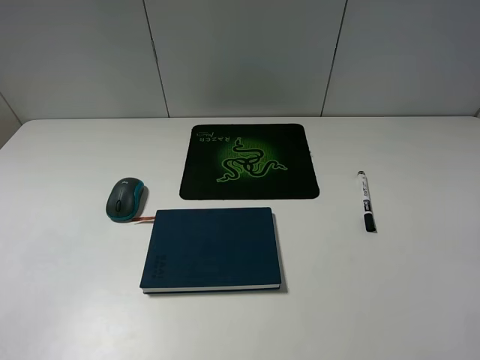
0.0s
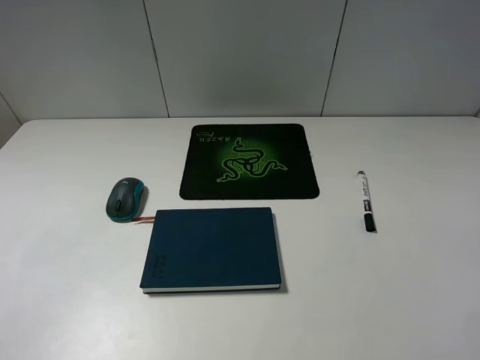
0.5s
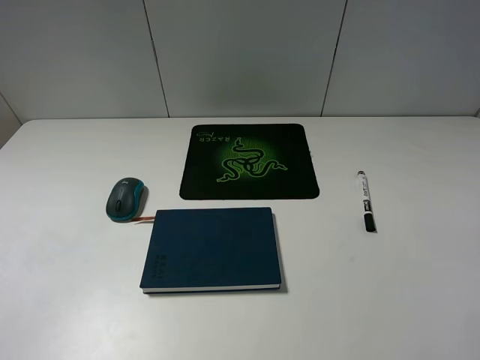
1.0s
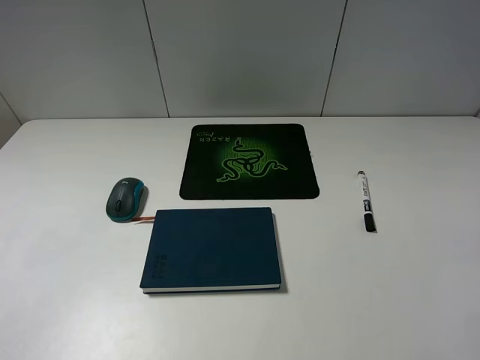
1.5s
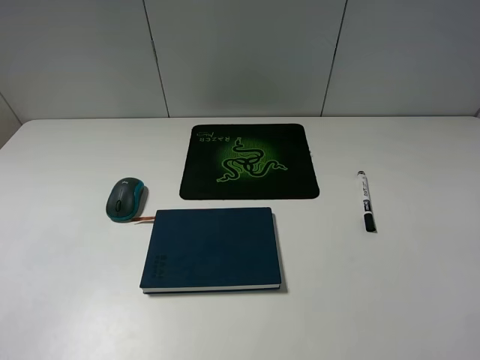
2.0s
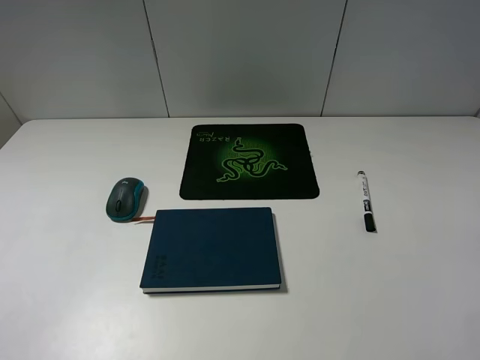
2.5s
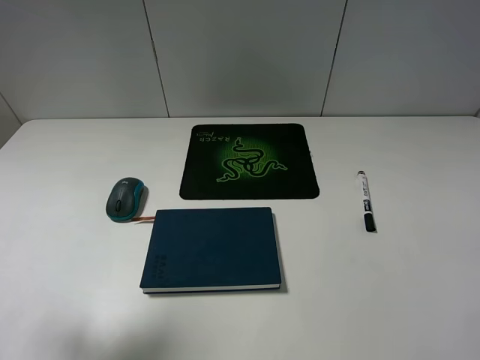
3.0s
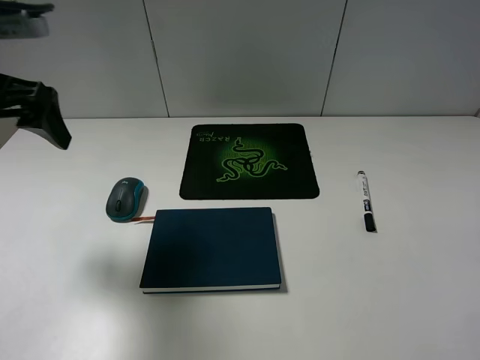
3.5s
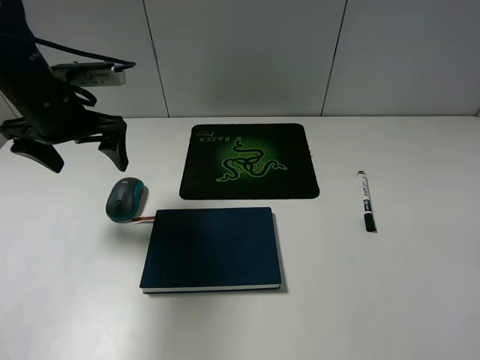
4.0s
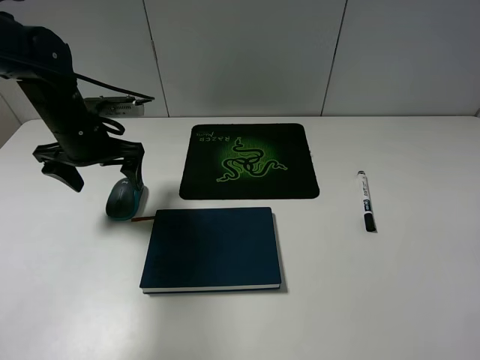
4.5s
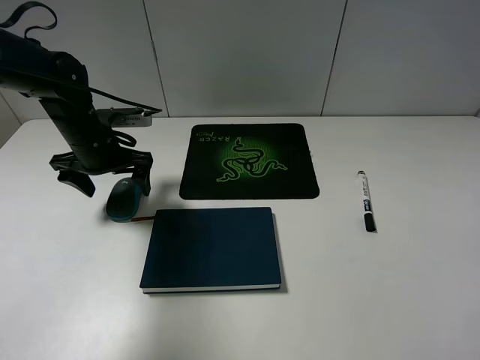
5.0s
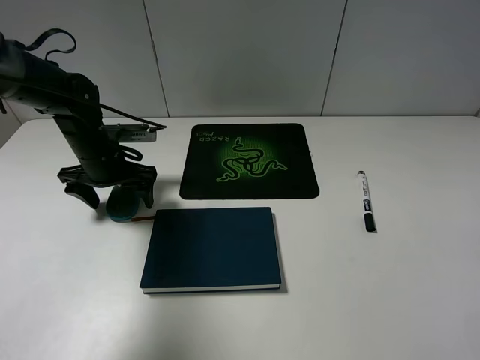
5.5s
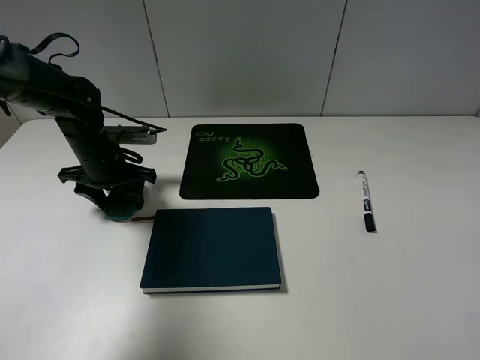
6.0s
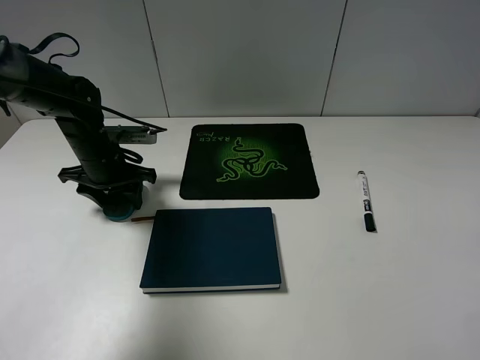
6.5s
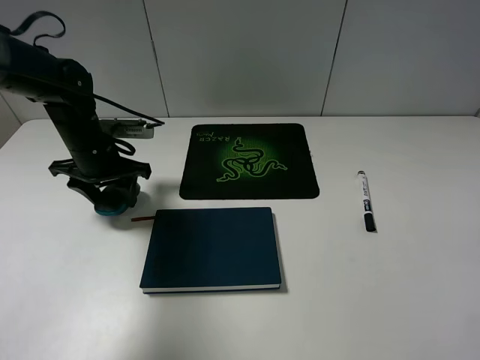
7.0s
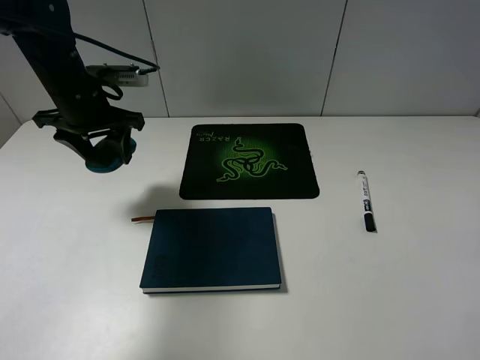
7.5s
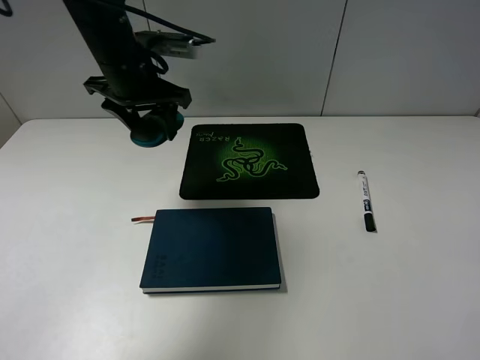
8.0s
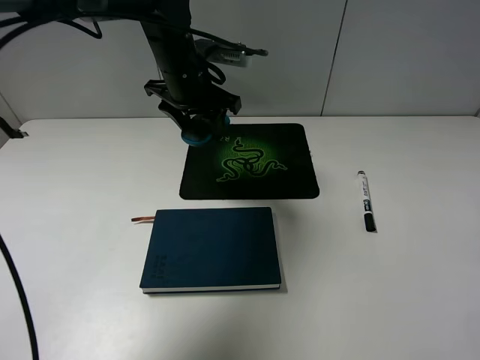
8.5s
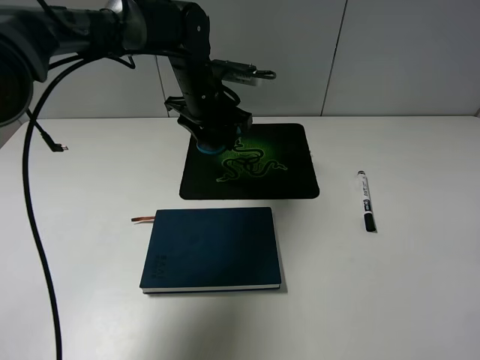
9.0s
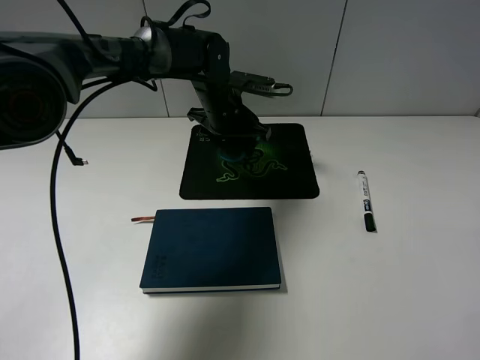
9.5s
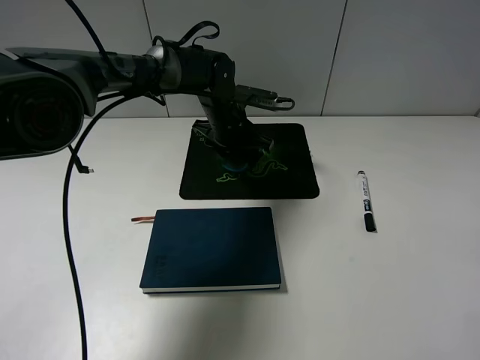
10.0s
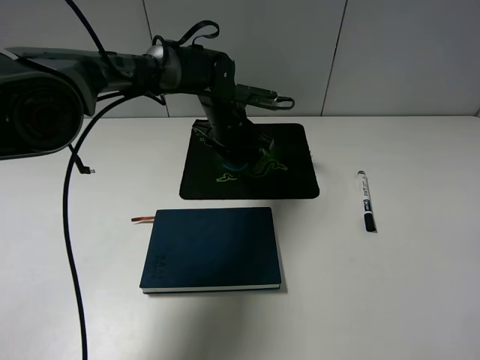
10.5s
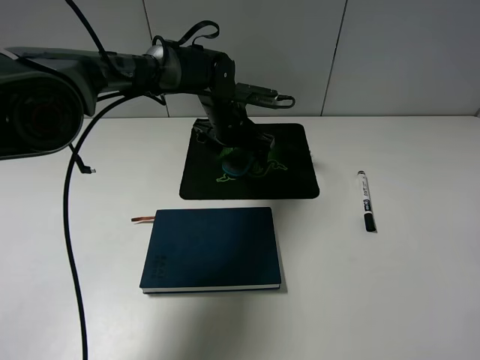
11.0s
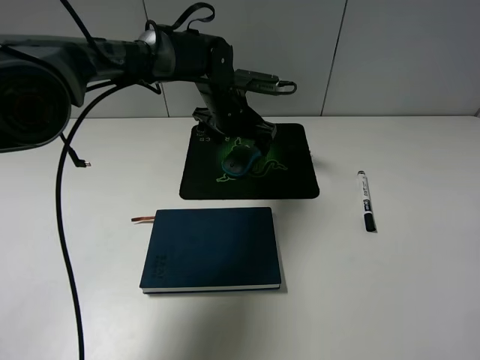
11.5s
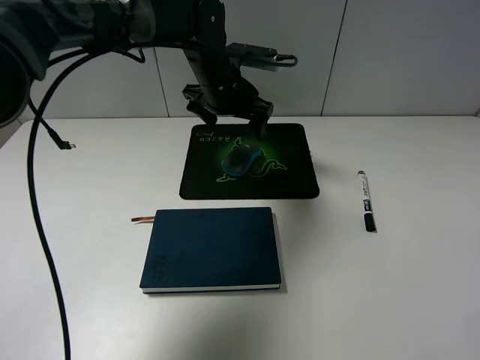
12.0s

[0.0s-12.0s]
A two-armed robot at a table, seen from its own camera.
Step, 0.0s to 6.0s: Grasp the mouse with the left gripper.
Step, 6.5s to 11.5s: Place the mouse on the mouse pad with the left gripper.
0.0s to 2.0s: Neither gripper changes place.
2.0s to 4.0s: The left gripper shifts some 30 cm forward.
4.0s to 6.0s: The left gripper moves downward, about 10 cm, and closes up.
6.0s to 8.0s: The left gripper is displaced upward and to the right by roughly 15 cm.
8.0s to 10.0s: The left gripper goes some 20 cm downward, to the right and forward.
10.0s to 12.0s: The left gripper is displaced upward by some 10 cm, and opens.

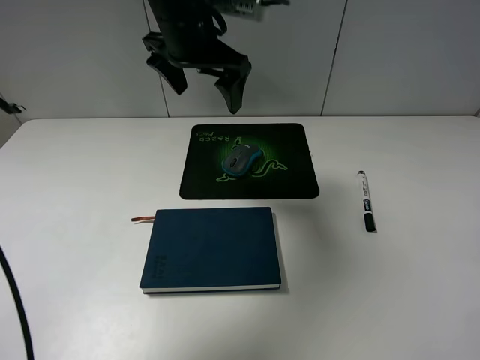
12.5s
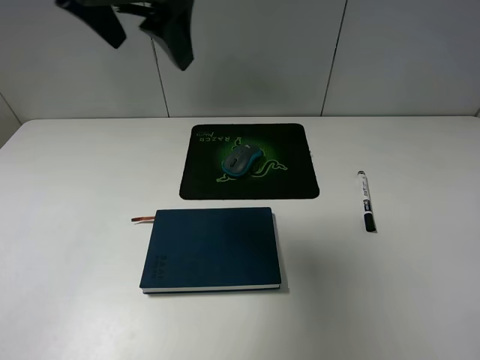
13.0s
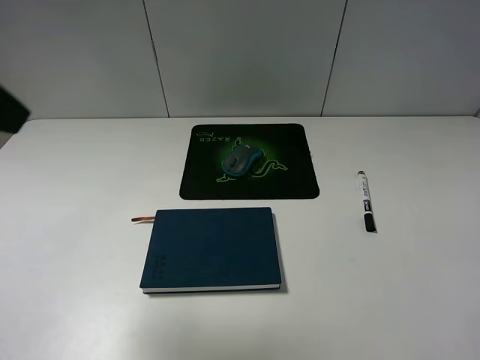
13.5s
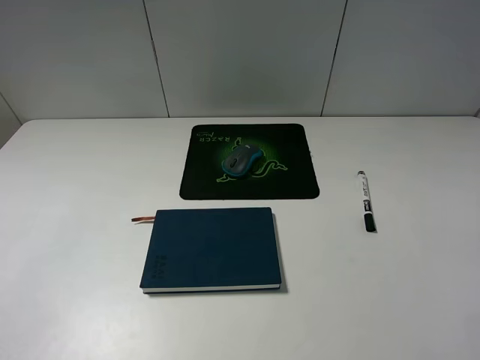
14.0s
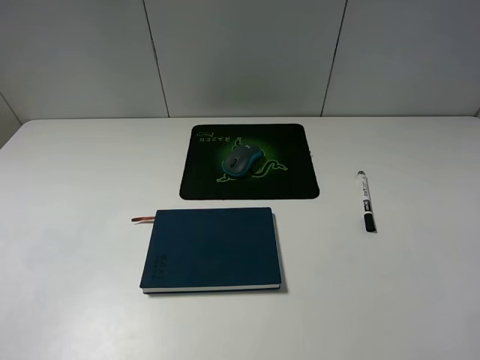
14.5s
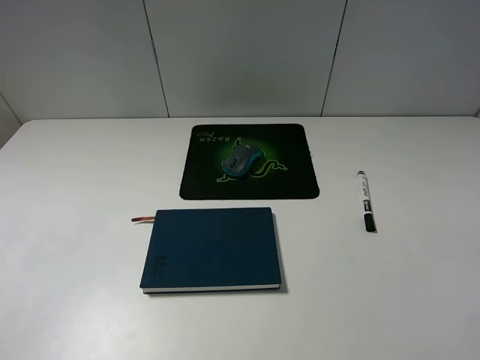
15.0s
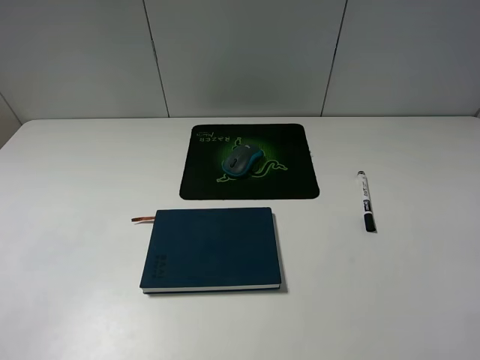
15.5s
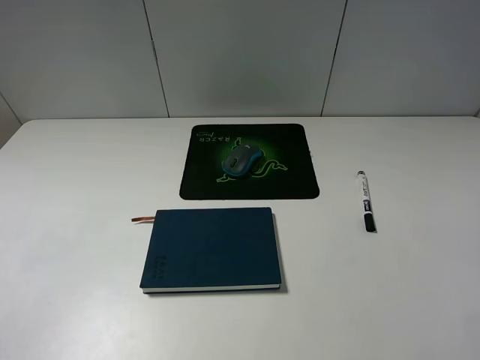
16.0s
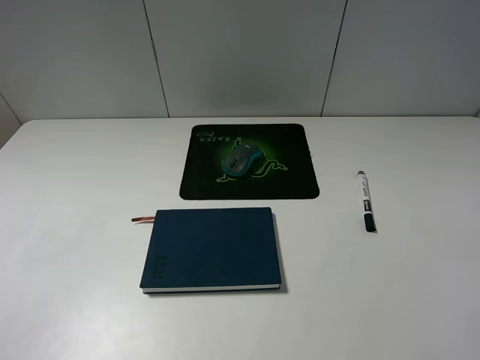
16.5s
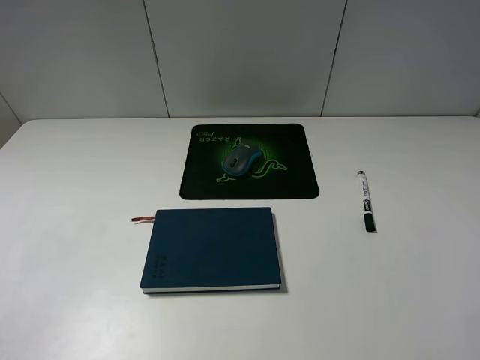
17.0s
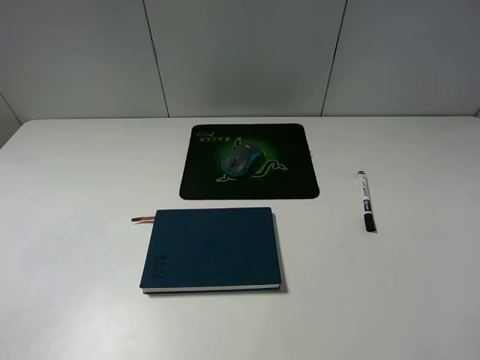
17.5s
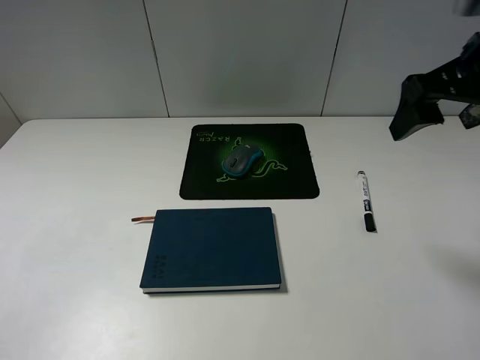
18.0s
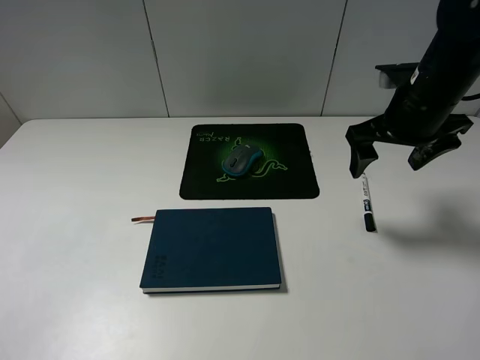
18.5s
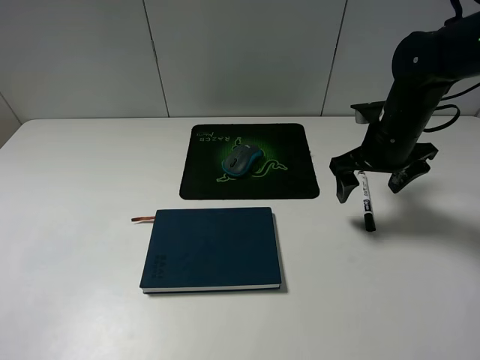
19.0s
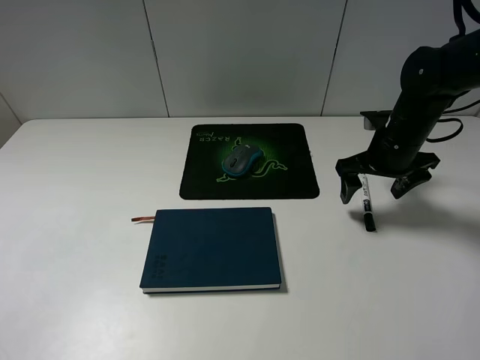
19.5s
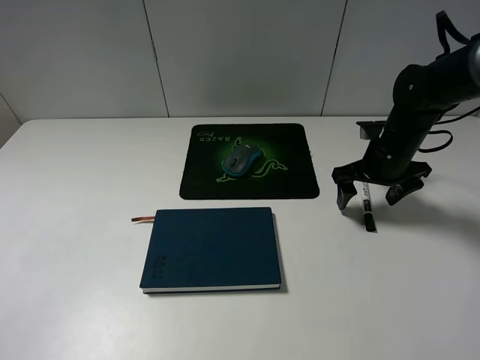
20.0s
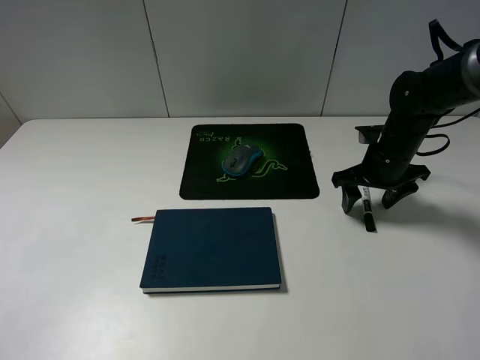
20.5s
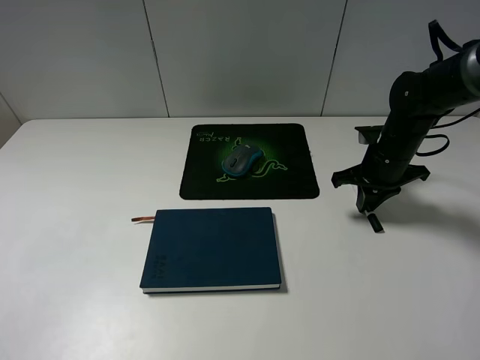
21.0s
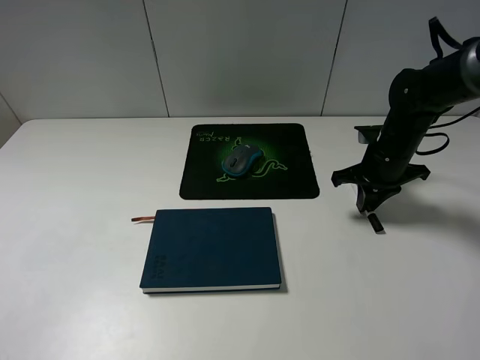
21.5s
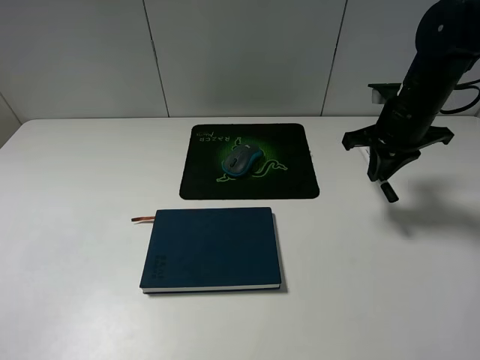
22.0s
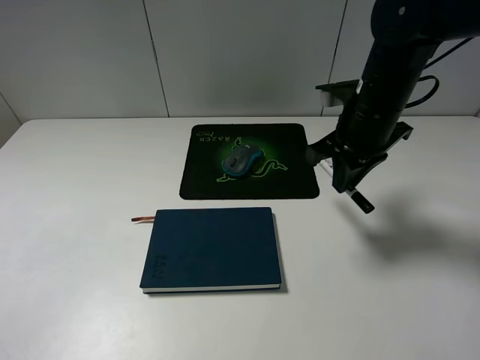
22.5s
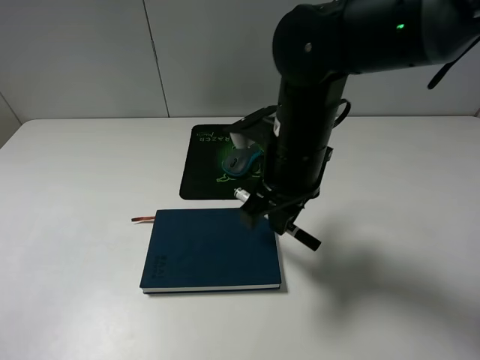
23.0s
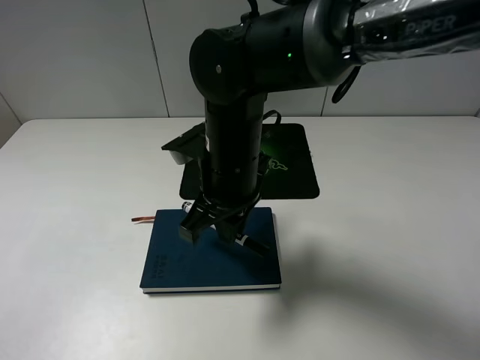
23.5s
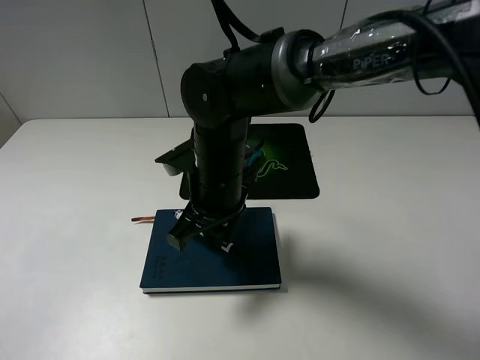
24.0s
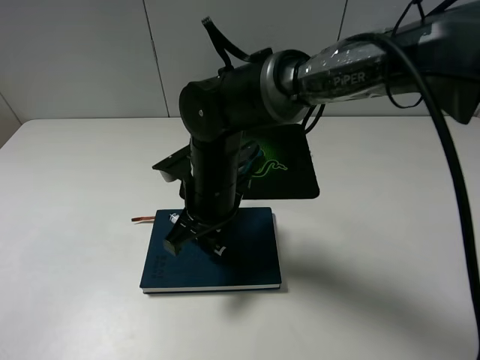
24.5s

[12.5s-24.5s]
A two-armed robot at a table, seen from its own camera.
Step, 12.5s to 21.0s: Grasp the marker with the right gripper.
12.5s to 14.5s: The left gripper goes approximately 40 cm backward and to the left.
16.5s to 18.5s: The right gripper goes about 30 cm forward.
18.5s to 20.5s: The right gripper goes approximately 10 cm downward.
20.5s to 22.5s: The right gripper goes about 15 cm upward, to the left and backward, and closes up.
22.5s to 24.5s: The right gripper shifts roughly 20 cm to the left and downward.

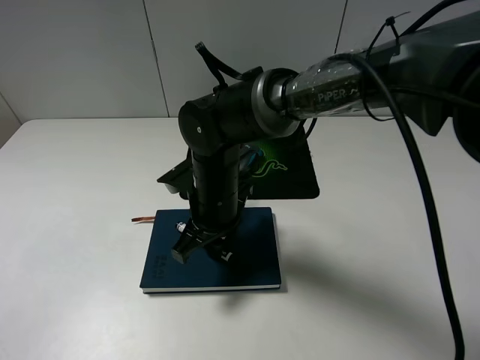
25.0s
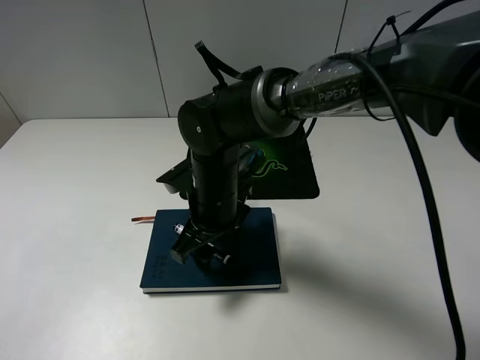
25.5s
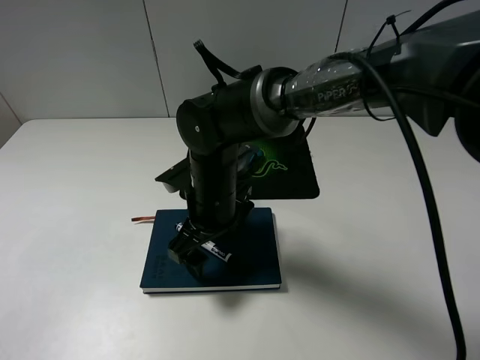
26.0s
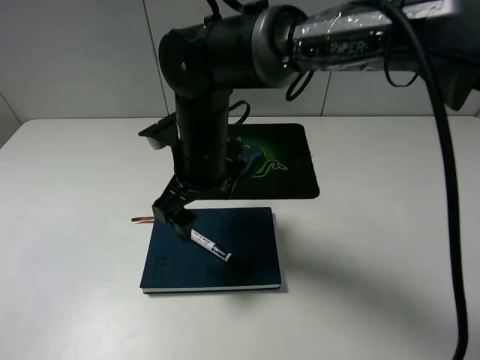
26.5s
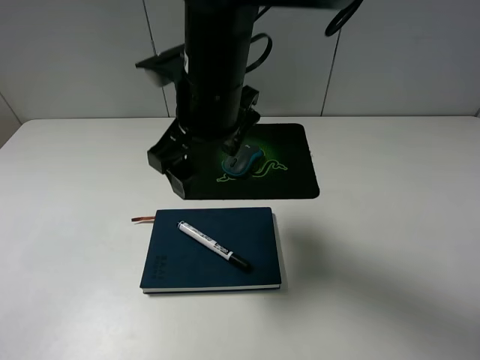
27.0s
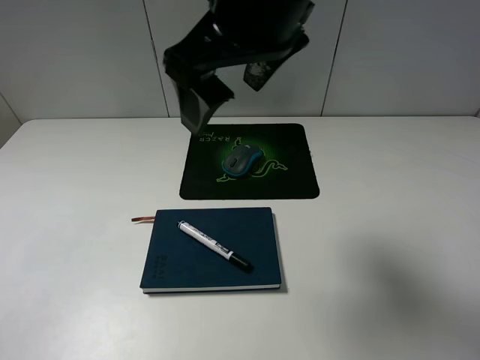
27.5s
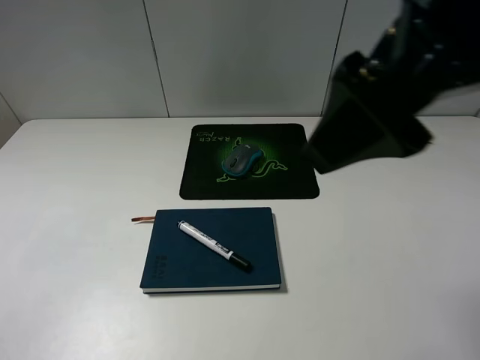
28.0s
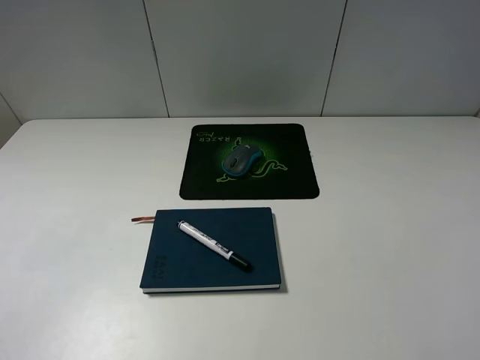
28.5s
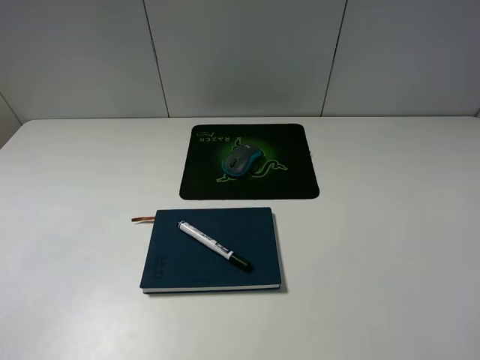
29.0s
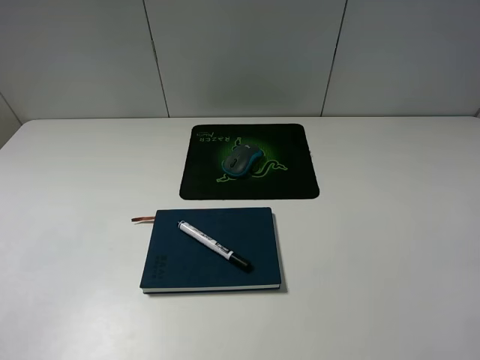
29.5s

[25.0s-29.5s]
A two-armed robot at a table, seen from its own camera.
25.0s to 27.0s: The right gripper goes some 15 cm upward, and opens its fingers.
27.0s to 29.5s: The right gripper moves to the right and backward, approximately 40 cm.
